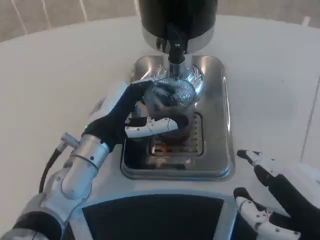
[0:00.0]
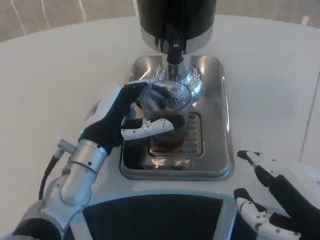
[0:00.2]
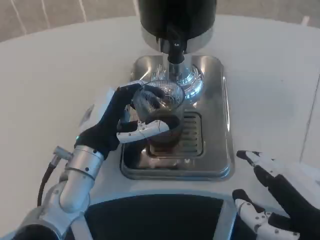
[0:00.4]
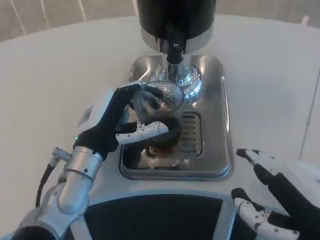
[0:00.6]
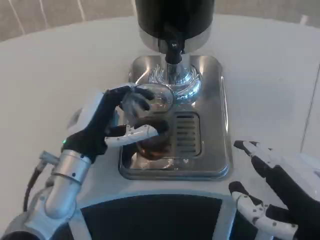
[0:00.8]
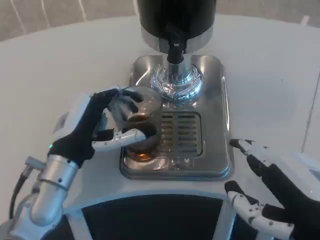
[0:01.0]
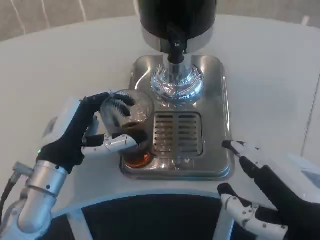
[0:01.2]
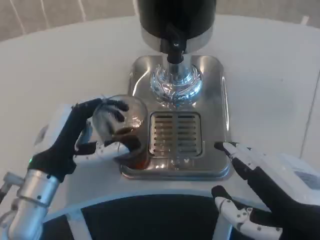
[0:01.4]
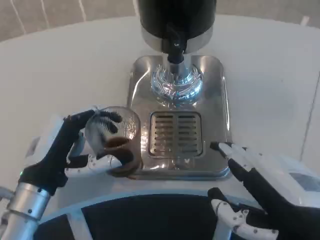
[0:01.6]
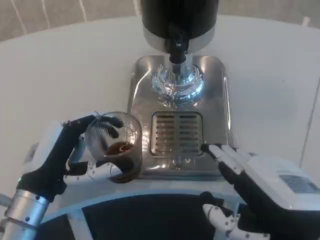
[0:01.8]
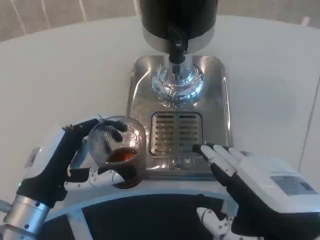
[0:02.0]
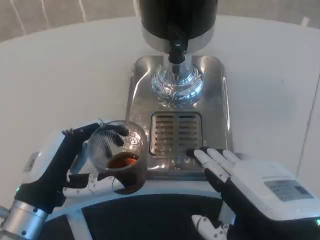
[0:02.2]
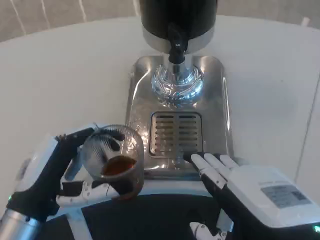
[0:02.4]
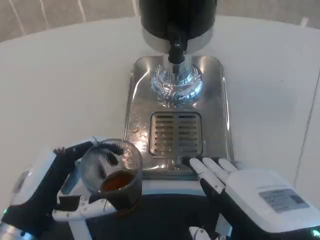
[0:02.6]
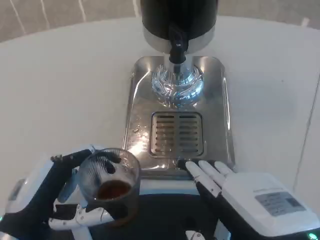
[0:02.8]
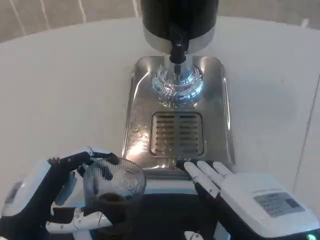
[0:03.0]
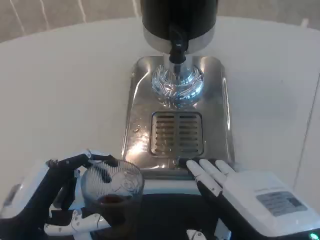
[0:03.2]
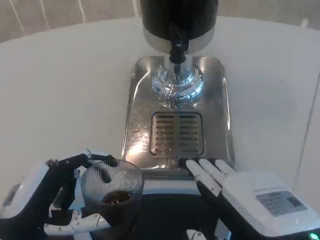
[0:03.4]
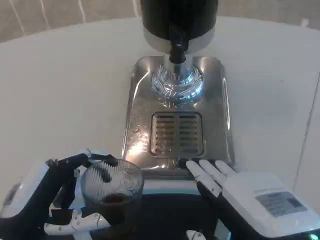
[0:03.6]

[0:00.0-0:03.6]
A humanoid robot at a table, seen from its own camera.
Task of the whole recording: Grasp the cup under the faucet to collect the drink, then remove the cup.
0:00.0 to 0:01.8: The left hand moves backward and to the left, roughly 10 cm.
0:01.8 to 0:03.6: The left hand heads backward, covering approximately 5 cm.
